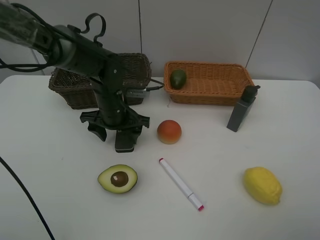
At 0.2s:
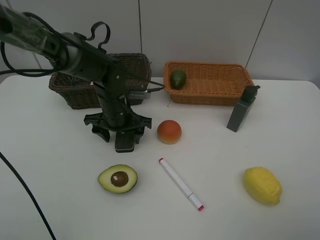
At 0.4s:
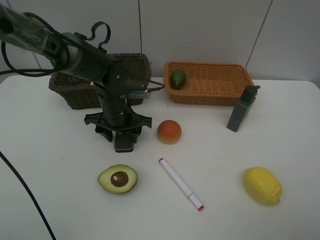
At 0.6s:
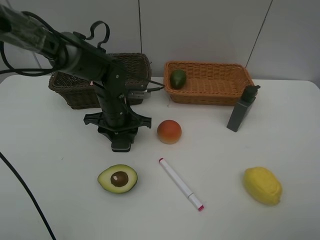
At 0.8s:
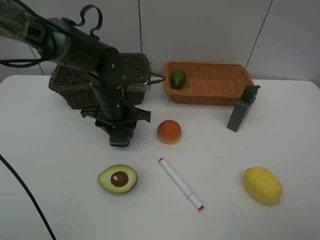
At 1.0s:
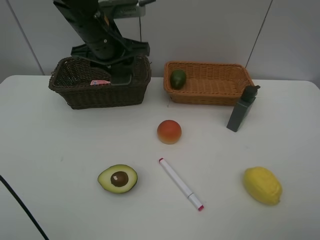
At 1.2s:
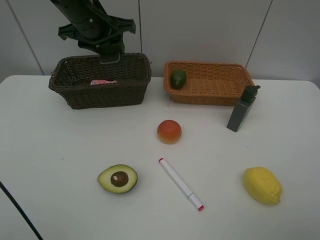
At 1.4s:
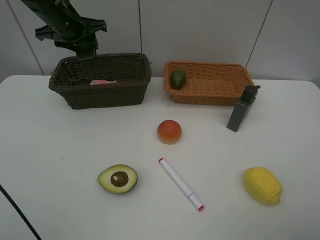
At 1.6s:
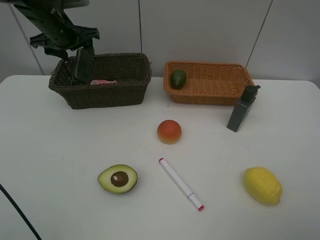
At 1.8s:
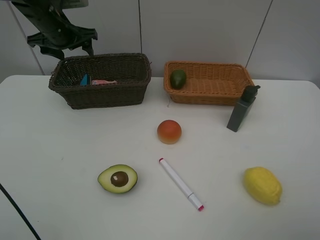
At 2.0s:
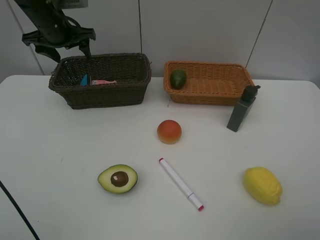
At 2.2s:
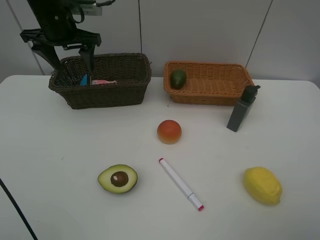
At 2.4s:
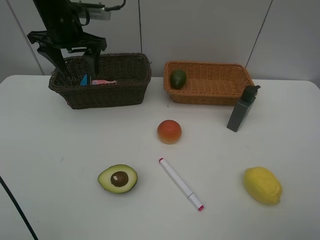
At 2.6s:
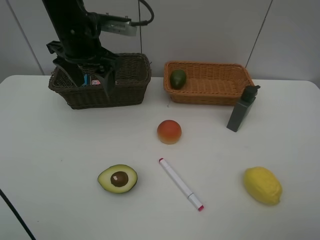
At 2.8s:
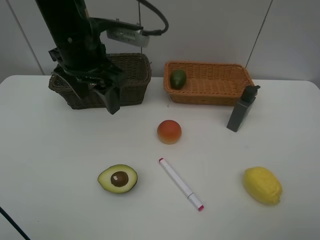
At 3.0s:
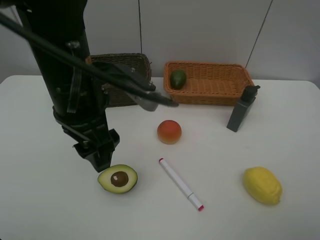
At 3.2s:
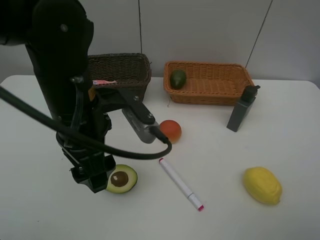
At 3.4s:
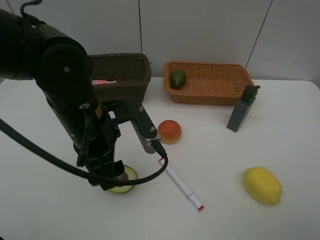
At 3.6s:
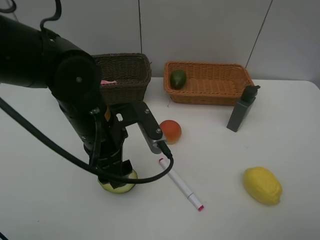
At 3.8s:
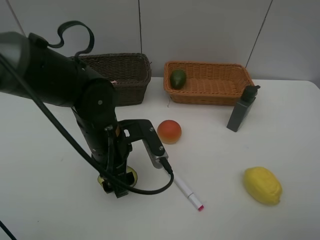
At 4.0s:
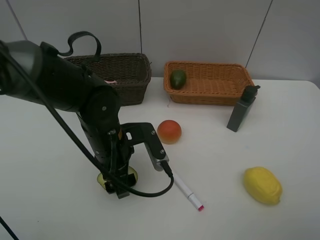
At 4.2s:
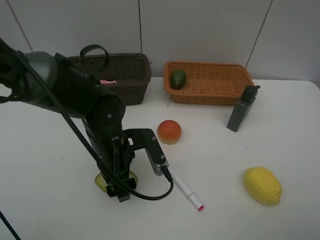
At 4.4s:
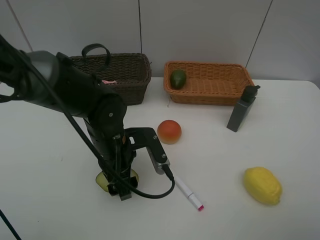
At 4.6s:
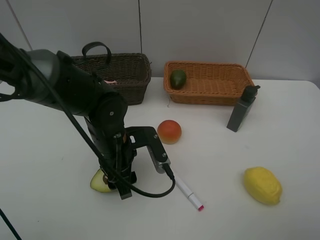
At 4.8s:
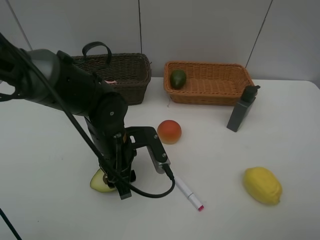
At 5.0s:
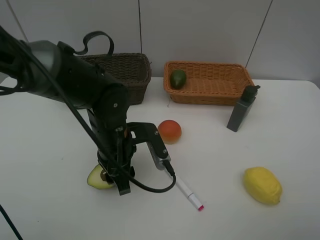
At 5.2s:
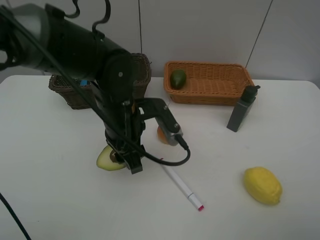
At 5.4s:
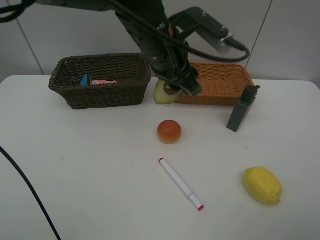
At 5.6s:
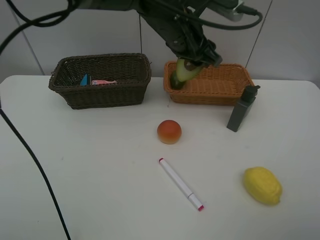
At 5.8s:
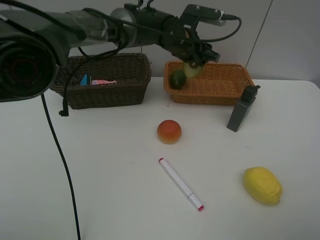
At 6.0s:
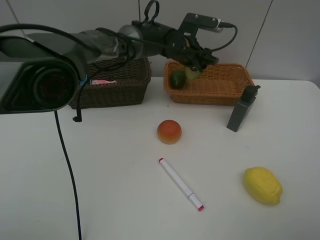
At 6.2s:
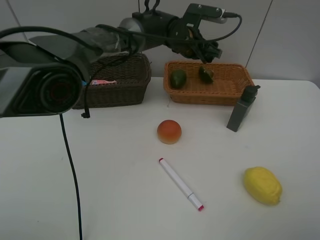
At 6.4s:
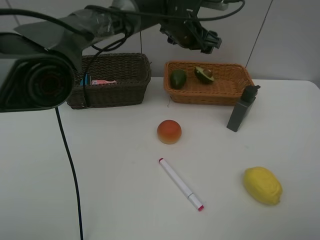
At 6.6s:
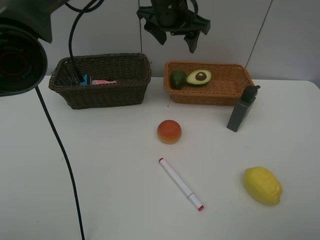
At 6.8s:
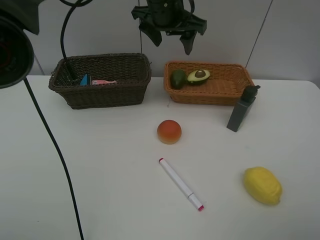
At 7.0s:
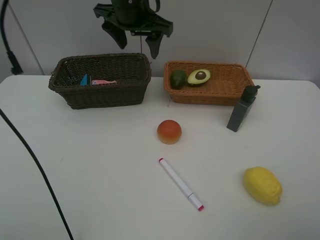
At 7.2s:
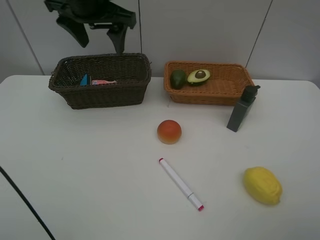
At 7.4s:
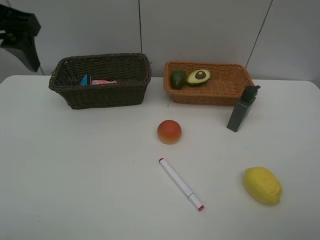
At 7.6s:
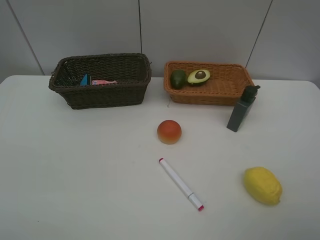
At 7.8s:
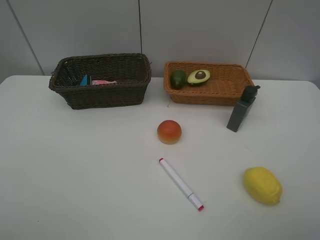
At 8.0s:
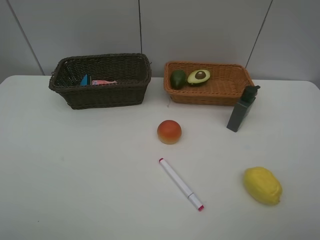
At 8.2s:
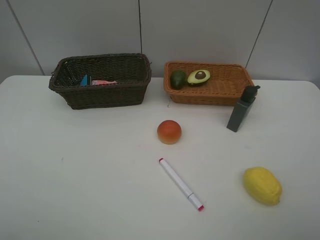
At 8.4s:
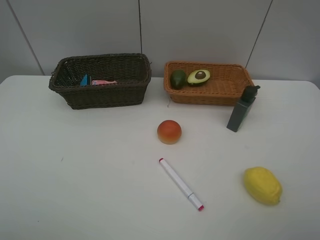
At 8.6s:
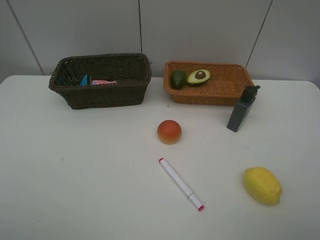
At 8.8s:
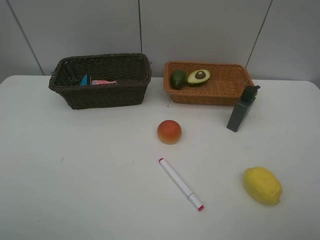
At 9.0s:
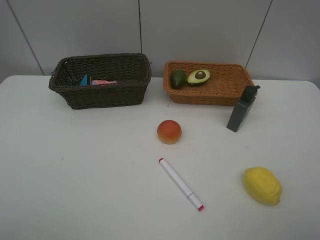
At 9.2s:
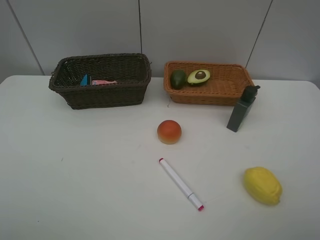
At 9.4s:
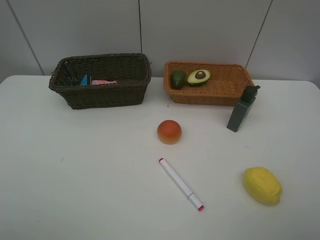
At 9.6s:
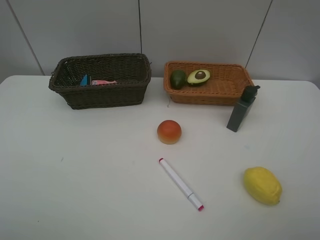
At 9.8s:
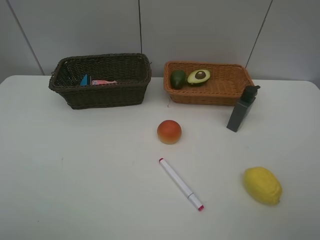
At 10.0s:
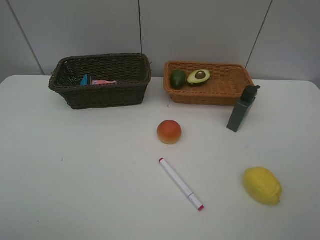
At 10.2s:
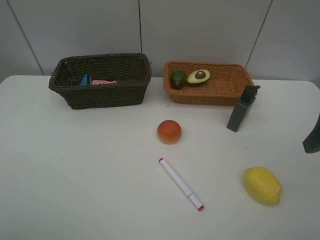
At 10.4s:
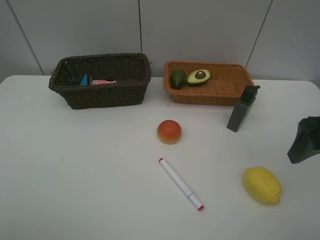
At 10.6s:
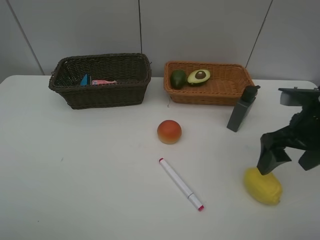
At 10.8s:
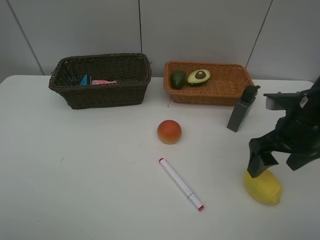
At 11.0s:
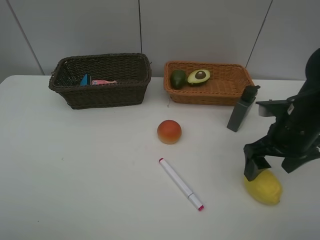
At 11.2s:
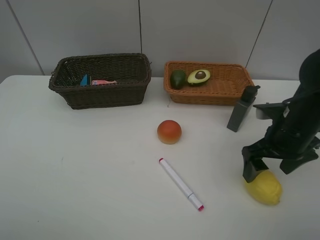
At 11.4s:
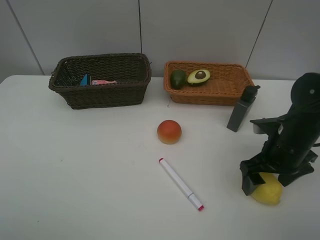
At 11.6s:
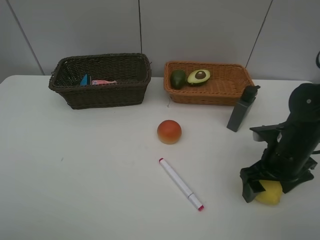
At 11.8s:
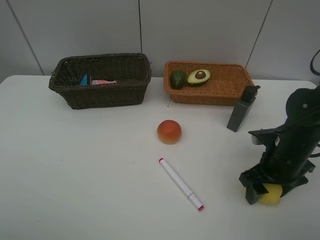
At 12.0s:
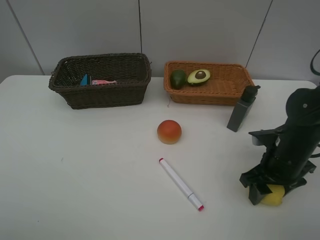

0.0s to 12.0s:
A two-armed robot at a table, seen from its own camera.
Task of the whole recording: Place multiple objects separately in different baskets.
Step, 1.0s to 1.6s: Place the blackboard eraser in the dark basket with left gripper.
Step, 1.8s to 5.0s: Pick up the avocado with left gripper.
Step, 5.2s to 6.2s: Place the avocado in the light basket with left gripper.
0.0s to 1.6s: The left gripper moves to the left, upward and forward, about 20 cm, and closes, then opens again.
1.6s to 3.0s: The left gripper moves backward and to the right, roughly 30 cm.
3.0s to 4.4s: The left gripper goes roughly 15 cm downward.
4.4s to 6.0s: The left gripper shifts about 25 cm forward and to the right.
6.0s to 7.6s: The left gripper goes some 50 cm to the left, backward and upward.
9.0s to 10.4s: The right gripper heads forward, covering about 20 cm.
10.4s to 12.0s: The right gripper shifts about 15 cm downward, and closes up.

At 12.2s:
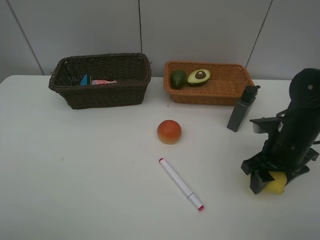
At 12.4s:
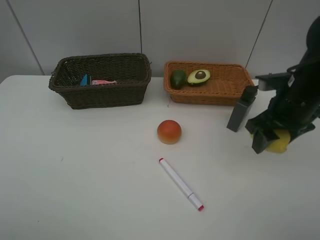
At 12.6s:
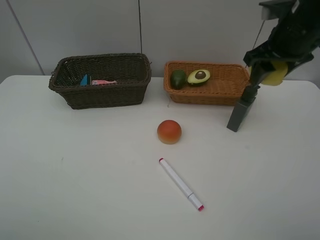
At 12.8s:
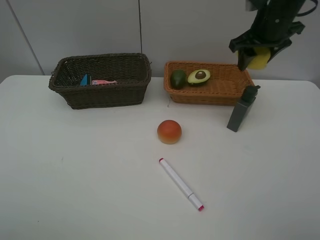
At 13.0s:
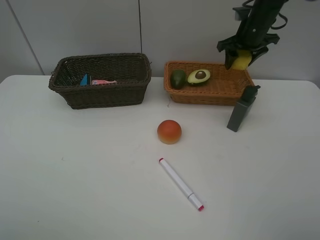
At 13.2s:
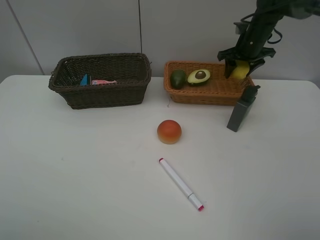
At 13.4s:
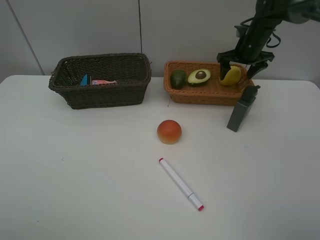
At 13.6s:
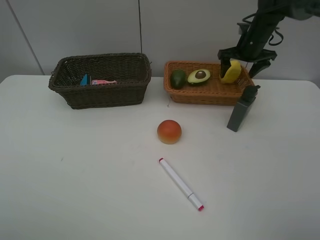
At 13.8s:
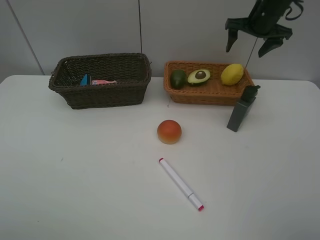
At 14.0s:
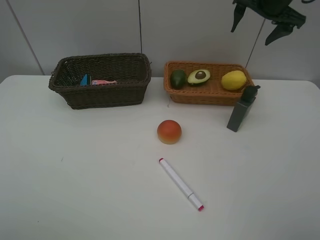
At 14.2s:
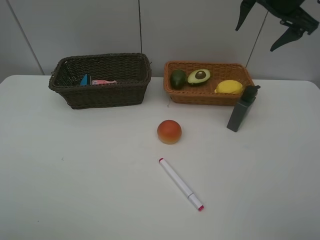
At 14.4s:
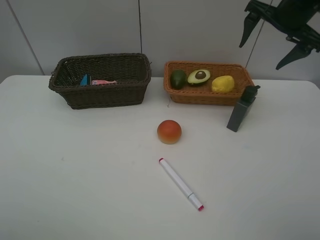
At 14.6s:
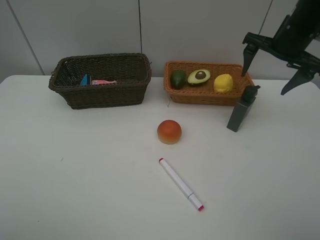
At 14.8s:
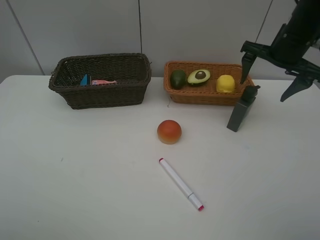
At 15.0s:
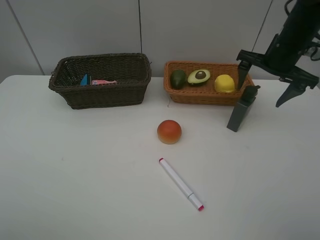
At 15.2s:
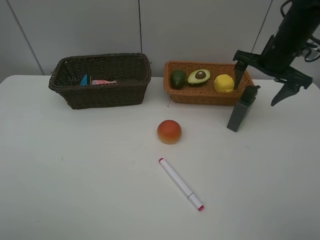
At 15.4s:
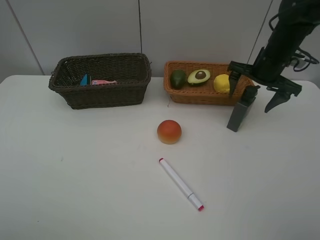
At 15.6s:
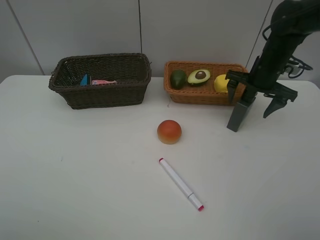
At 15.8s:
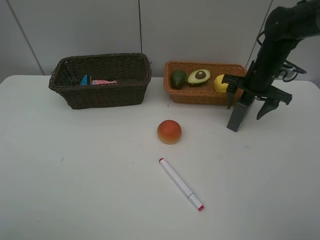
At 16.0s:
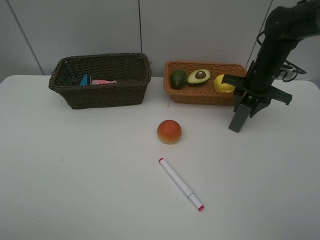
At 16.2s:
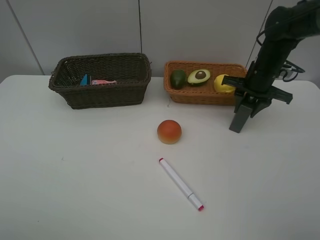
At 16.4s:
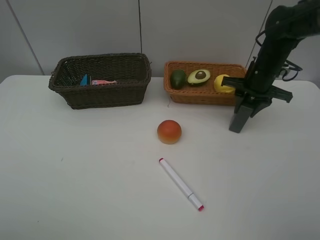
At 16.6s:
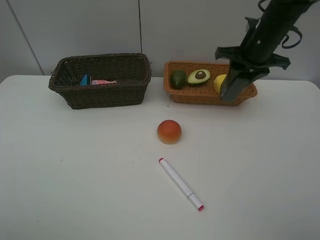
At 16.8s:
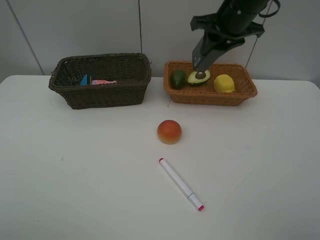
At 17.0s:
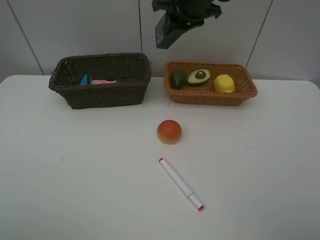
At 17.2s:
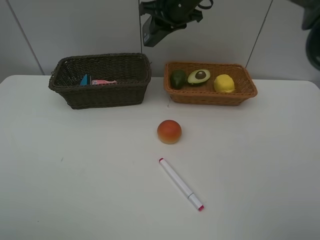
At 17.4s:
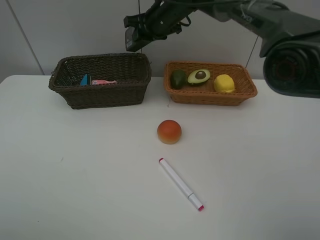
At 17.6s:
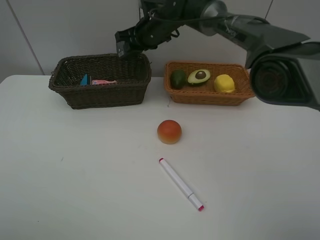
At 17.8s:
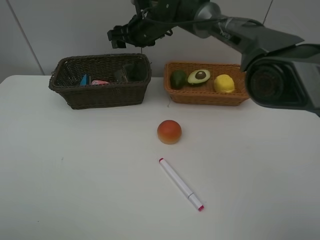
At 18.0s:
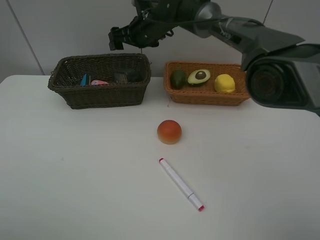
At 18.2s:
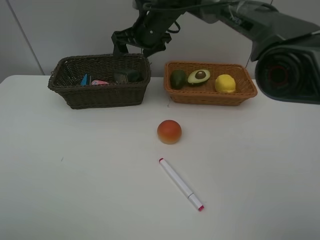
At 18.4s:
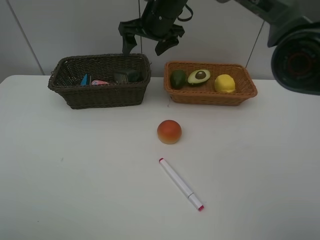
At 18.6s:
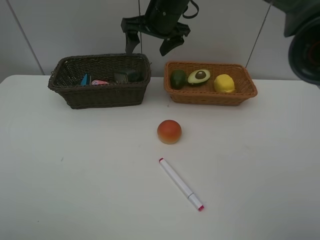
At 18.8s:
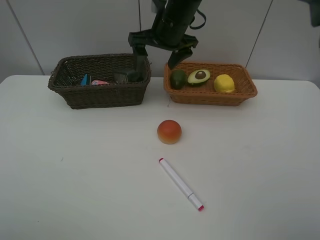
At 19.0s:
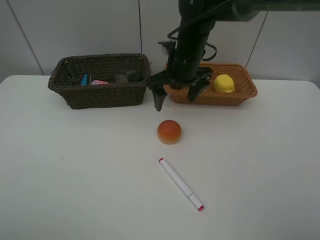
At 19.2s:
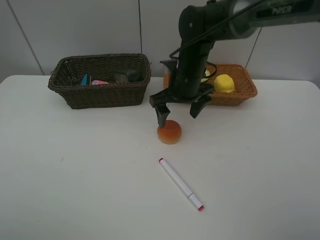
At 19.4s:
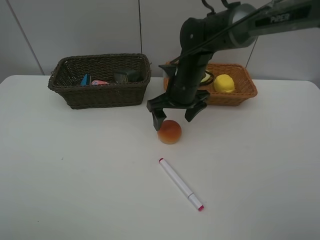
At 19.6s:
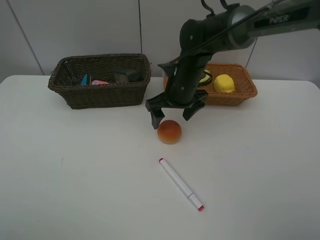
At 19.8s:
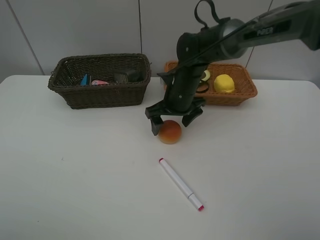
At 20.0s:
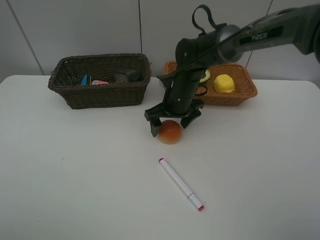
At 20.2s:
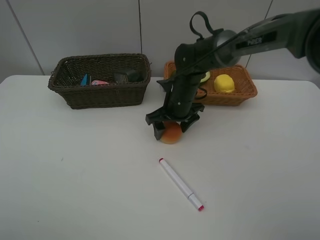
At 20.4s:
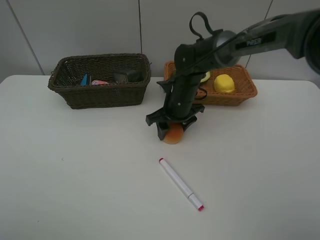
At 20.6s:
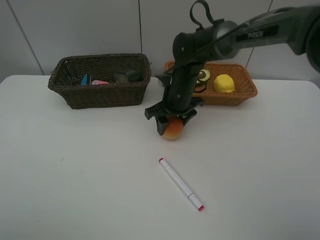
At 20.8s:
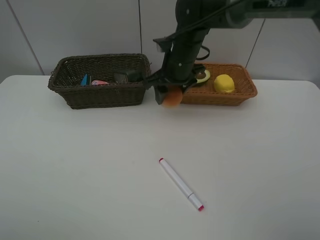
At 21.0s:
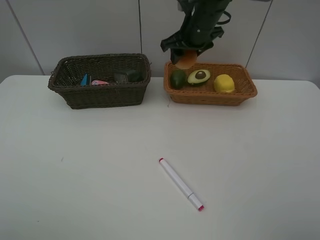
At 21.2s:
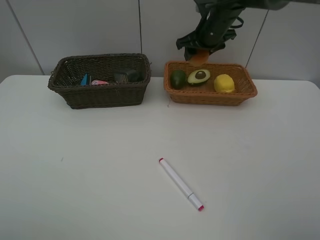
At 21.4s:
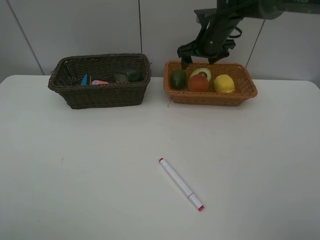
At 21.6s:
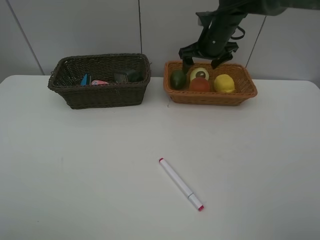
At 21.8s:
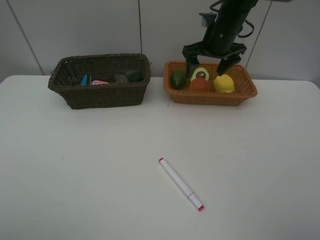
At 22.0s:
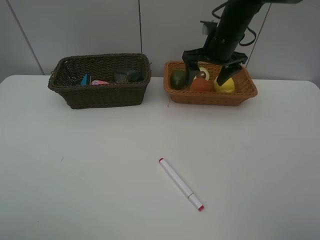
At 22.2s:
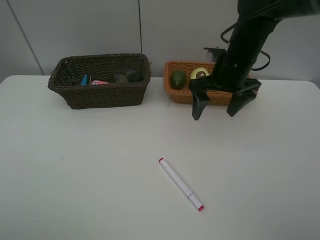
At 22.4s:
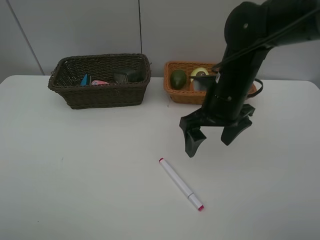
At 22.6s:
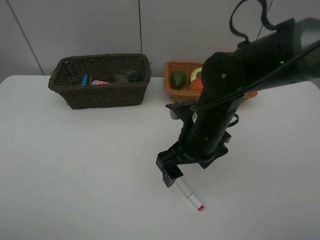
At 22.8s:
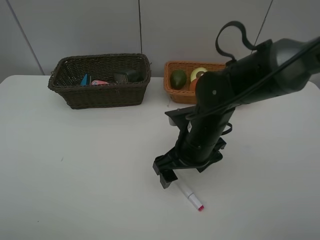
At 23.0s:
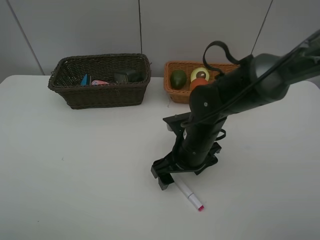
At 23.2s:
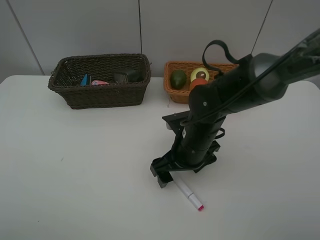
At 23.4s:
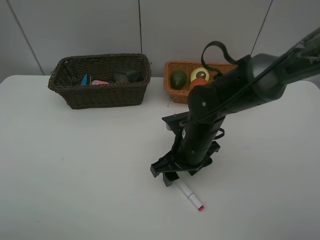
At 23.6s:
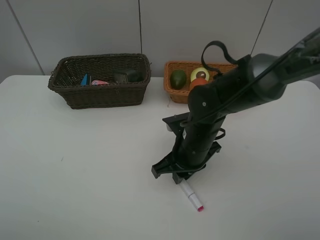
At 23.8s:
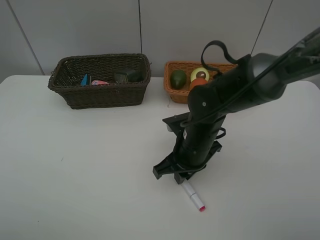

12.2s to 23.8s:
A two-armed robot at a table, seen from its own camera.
Task of the whole recording: Place multiple objects separately in different baskets.
Step, 12.4s to 13.6s: Place the lemon in the light basket with right gripper.
Step, 13.8s to 16.4s: Pick up the hard facial cleanser with right gripper.
Step, 16.6s to 18.0s: Place the hard facial cleanser in the dark basket with right gripper.
Step, 18.2s to 20.6s: Pick up egg yolk pastry with right gripper.
Step, 20.8s to 21.6s: Place the egg yolk pastry in the light basket with right gripper.
12.2s to 13.6s: The right gripper travels forward by roughly 25 cm, and opens up.
13.6s to 15.0s: The right gripper heads backward, covering roughly 15 cm.
15.0s to 16.6s: The right gripper travels to the left by approximately 5 cm, reaches some 5 cm downward, then returns, and closes up.
16.6s to 18.0s: The right gripper goes about 20 cm to the left, and opens up.
18.0s to 19.4s: The right gripper travels backward, to the right and downward by about 15 cm.
19.4s to 21.0s: The right gripper travels forward and upward by roughly 15 cm, and closes up.
21.0s to 22.4s: The right gripper heads backward, covering roughly 20 cm, and opens its fingers.
22.4s to 23.8s: The right gripper shifts roughly 10 cm downward, and closes.
